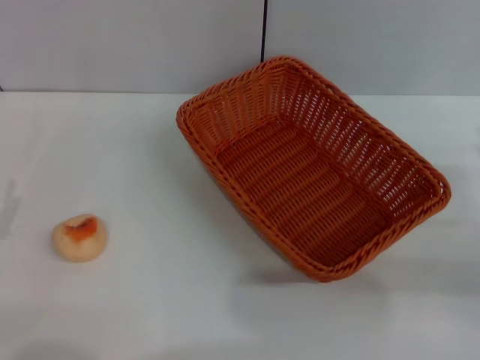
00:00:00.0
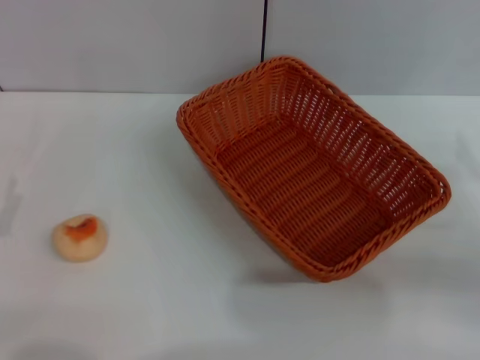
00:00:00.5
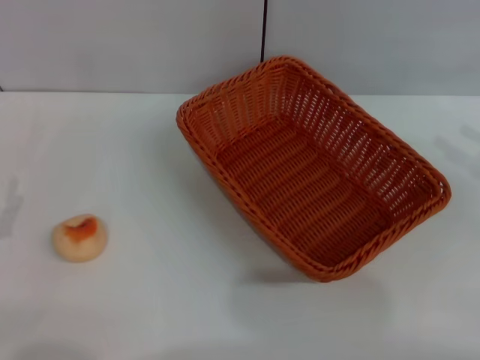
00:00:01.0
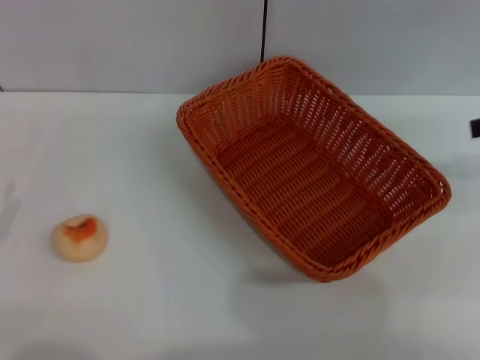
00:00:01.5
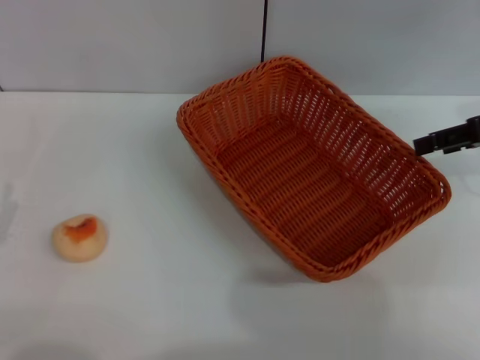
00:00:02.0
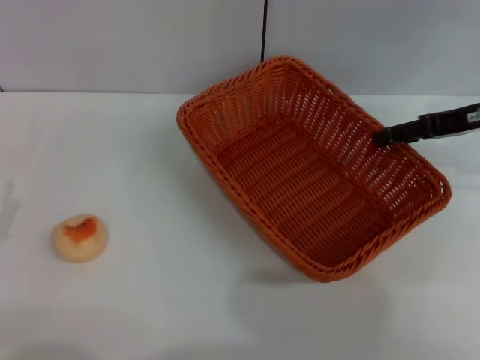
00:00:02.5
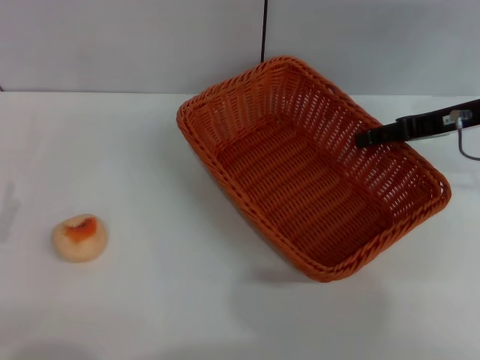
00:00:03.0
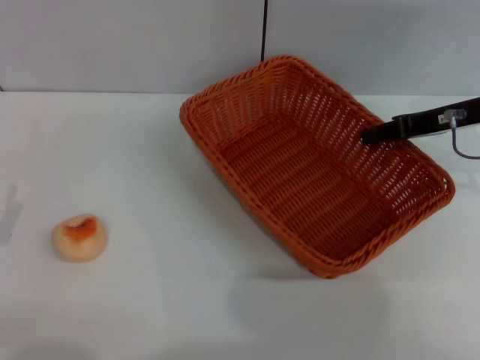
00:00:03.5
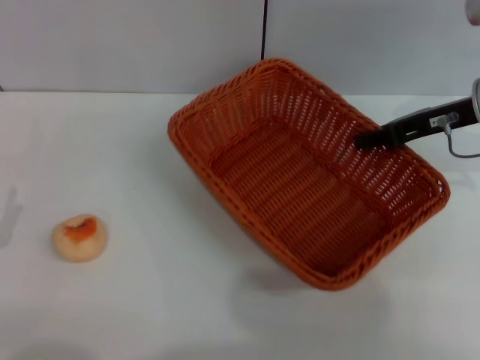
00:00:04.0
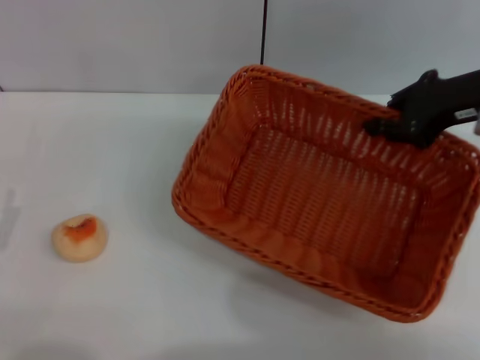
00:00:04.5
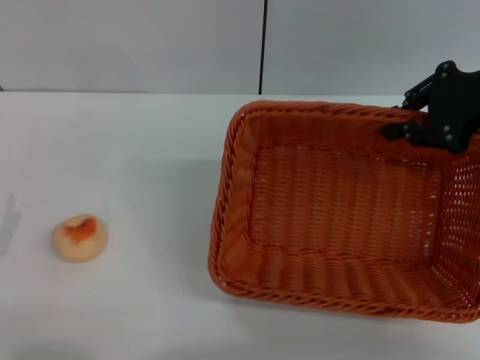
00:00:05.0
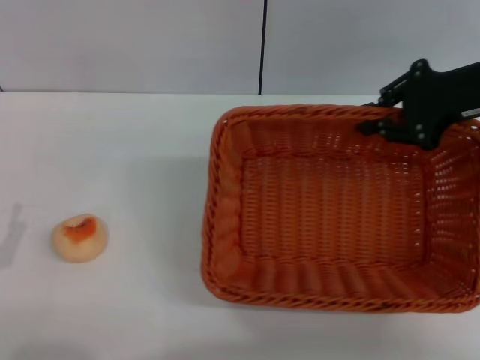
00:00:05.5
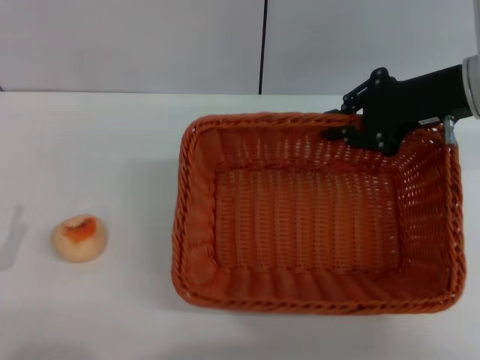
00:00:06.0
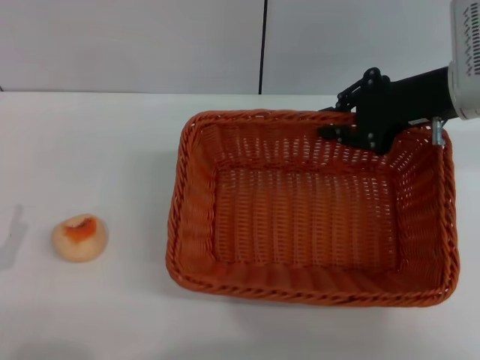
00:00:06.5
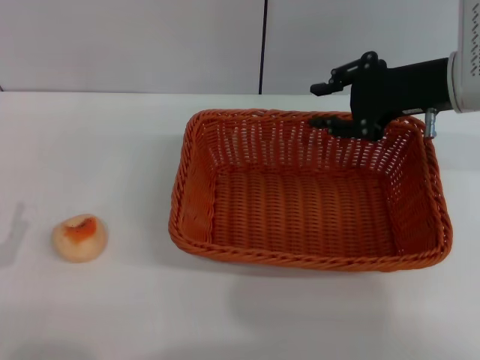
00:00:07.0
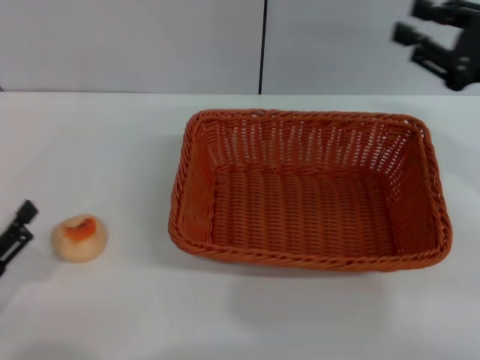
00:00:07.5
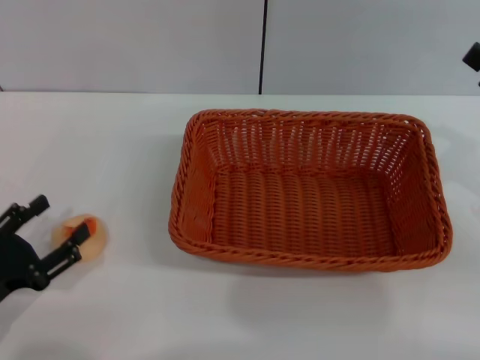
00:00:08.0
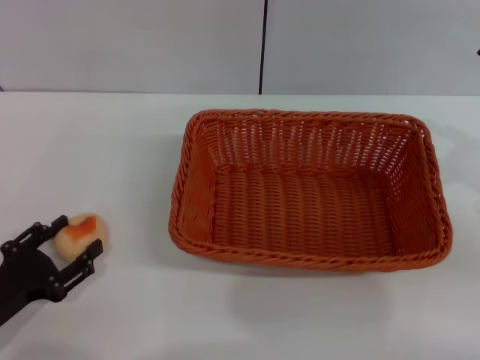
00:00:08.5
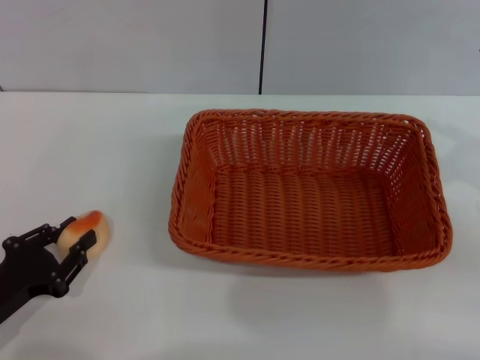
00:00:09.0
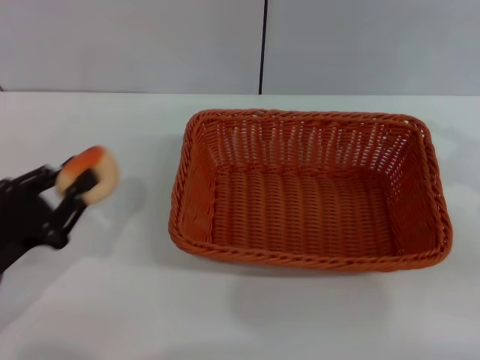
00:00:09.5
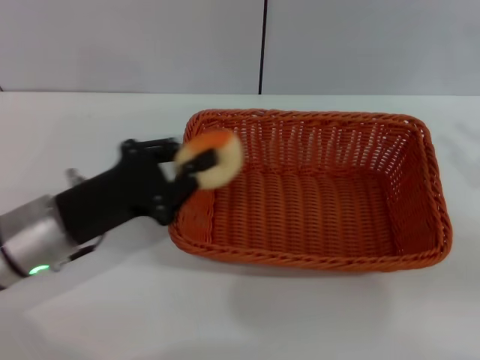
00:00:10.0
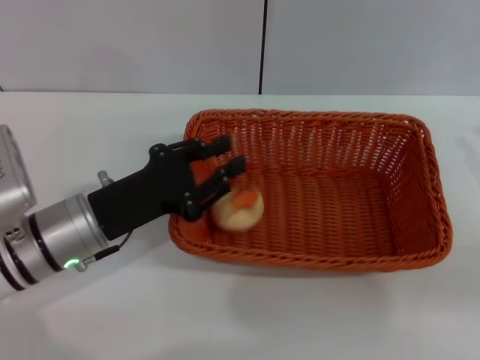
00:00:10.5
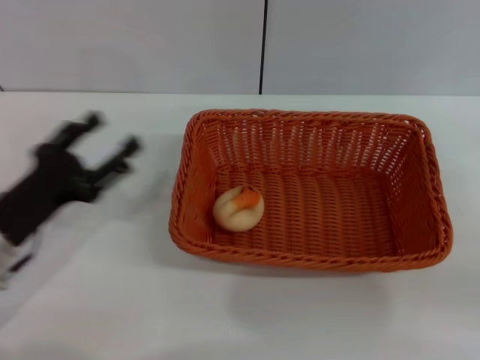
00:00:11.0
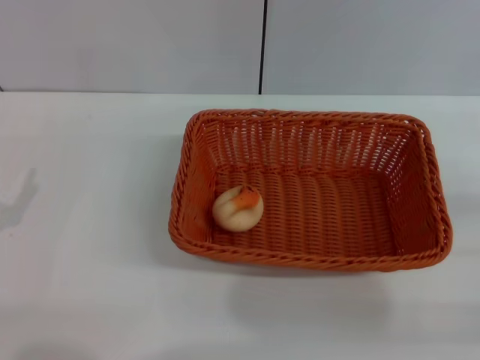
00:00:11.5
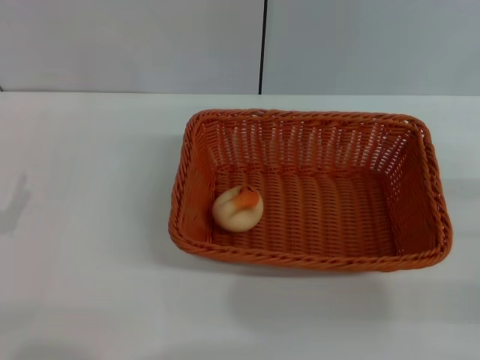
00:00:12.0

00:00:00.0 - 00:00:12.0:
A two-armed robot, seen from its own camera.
Step, 00:00:00.0 - 00:00:07.0: Move the basket to the center of view with the right gripper.
Step, 00:00:07.5 - 00:00:09.5: Pick up the egg yolk pastry with the left gripper.
Step, 00:00:10.0 - 00:00:10.5: Place the egg yolk pastry into the basket with the left gripper.
00:00:00.0 - 00:00:02.0: The right gripper goes about 20 cm upward and forward.
00:00:02.0 - 00:00:04.0: The right gripper heads to the left, covering roughly 5 cm, and closes.
00:00:06.0 - 00:00:08.0: The right gripper goes roughly 15 cm backward and to the right.
00:00:08.0 - 00:00:10.0: The left gripper heads to the right and forward, covering some 15 cm, and closes its fingers.
00:00:10.0 - 00:00:12.0: The right gripper is displaced downward by about 5 cm, and opens; the left gripper is displaced to the left and backward by roughly 15 cm, and opens its fingers.
